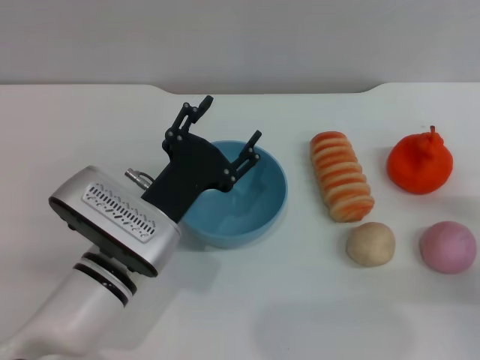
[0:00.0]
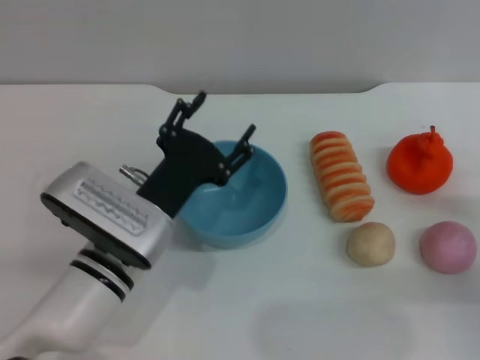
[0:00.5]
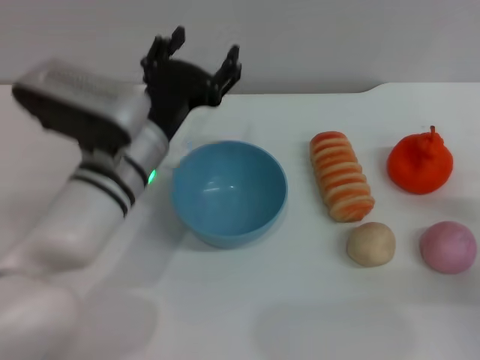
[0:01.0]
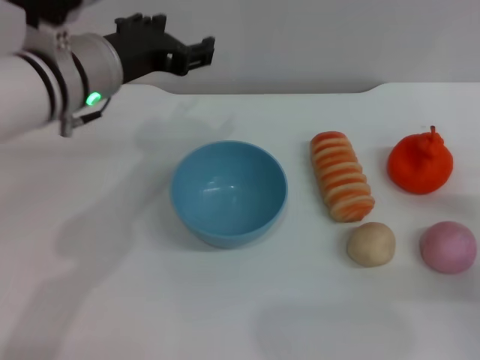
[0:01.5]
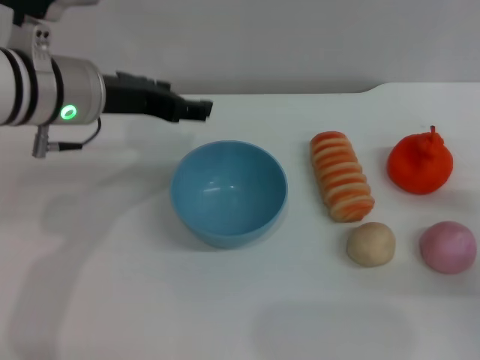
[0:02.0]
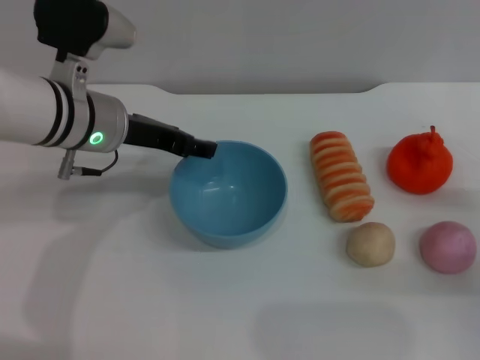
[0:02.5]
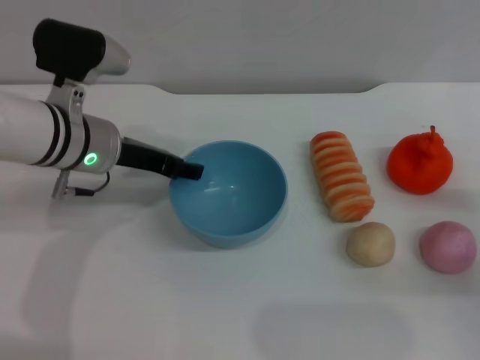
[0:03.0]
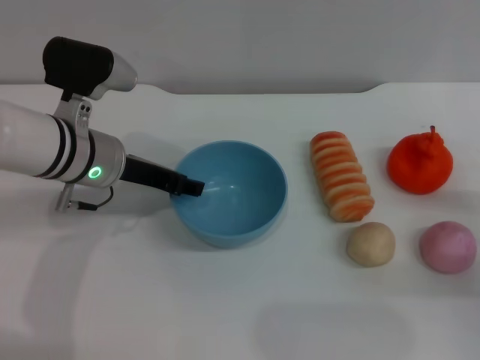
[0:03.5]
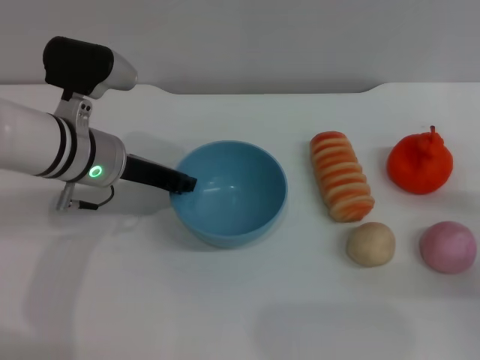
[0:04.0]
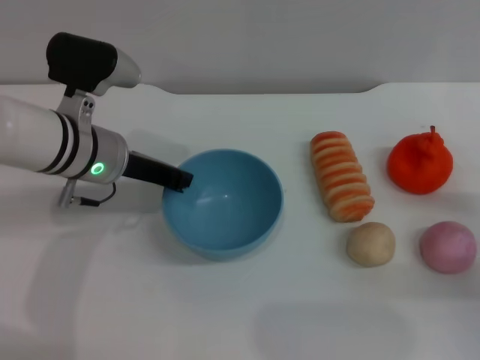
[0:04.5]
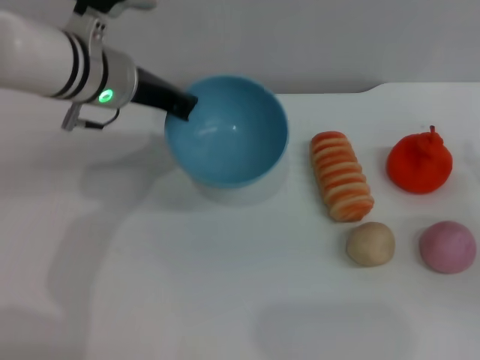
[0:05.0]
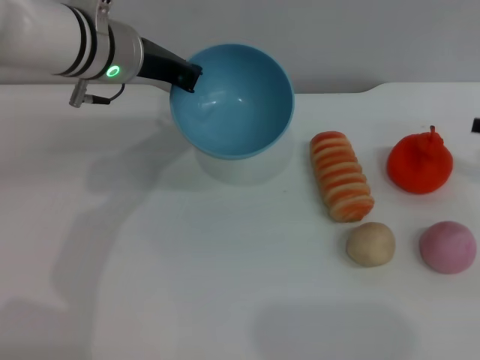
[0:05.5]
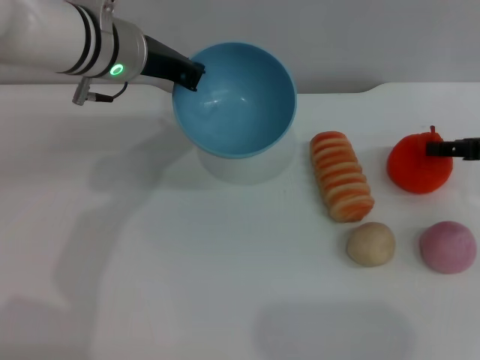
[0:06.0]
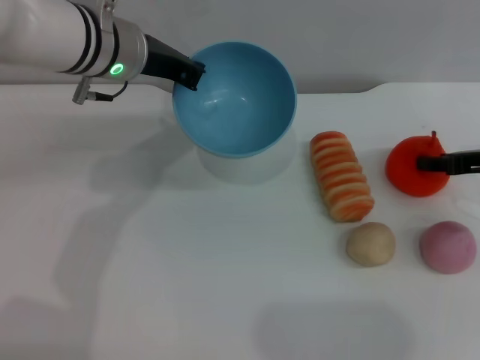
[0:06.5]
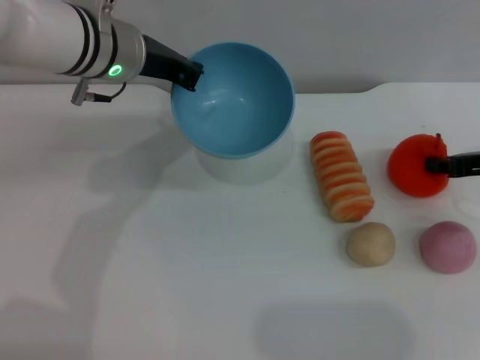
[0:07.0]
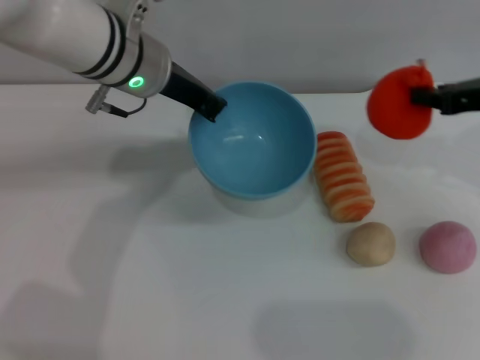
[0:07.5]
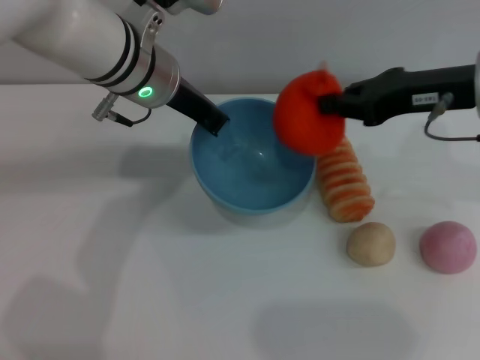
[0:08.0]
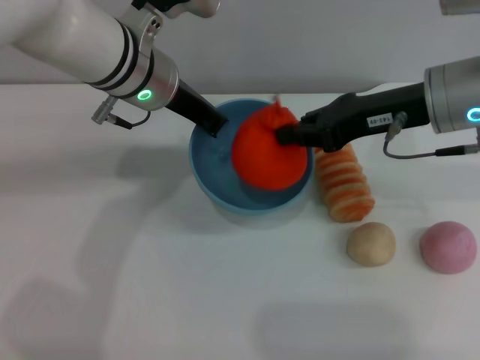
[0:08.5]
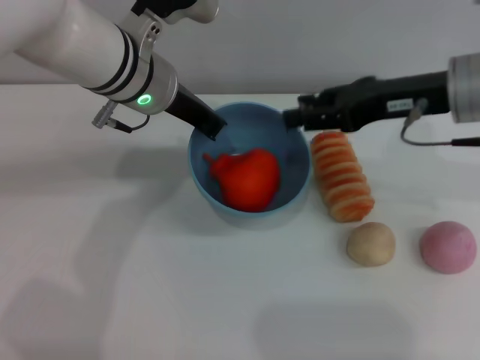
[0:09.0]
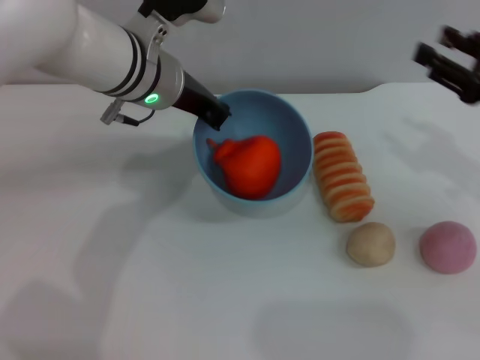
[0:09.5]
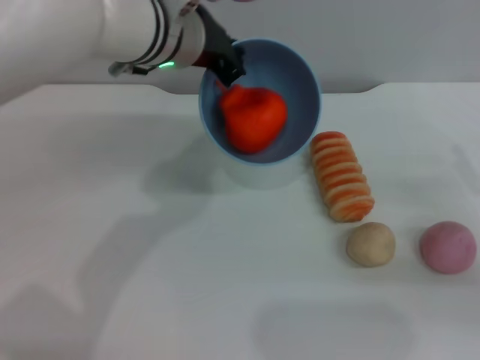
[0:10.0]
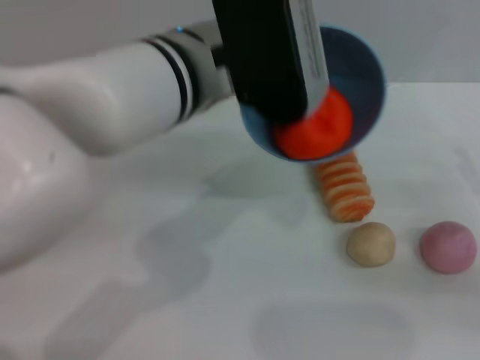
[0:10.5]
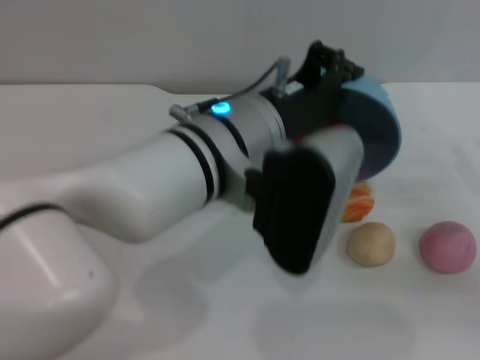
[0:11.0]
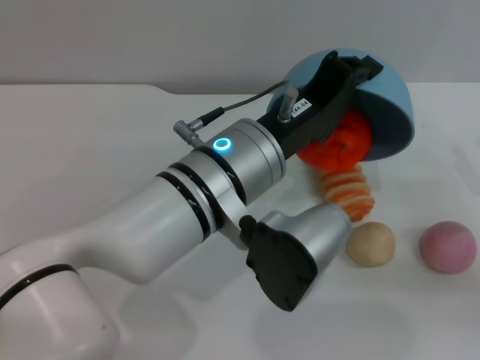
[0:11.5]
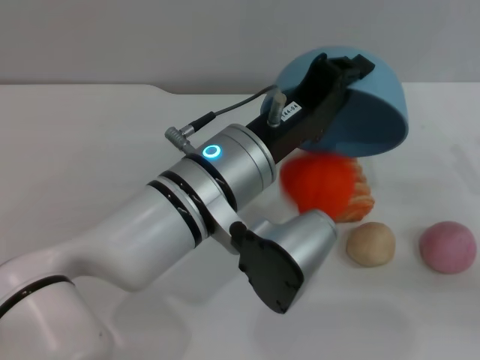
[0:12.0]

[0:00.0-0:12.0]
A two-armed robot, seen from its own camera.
Task of the whole recording: put the orange into the blue bowl and pour it out repeatedly.
Step, 0:00.0 to 0:05.0: Pick up the bowl with the left gripper.
Step, 0:05.5 to 0:07.0: Pick up the orange with the right gripper.
Step, 0:07.5 to 0:09.0: Place the orange into the bowl.
0:00.0 to 0:02.0: The left gripper heads upward and forward, covering some 15 cm.
0:02.0 to 0:04.0: The left gripper goes roughly 10 cm downward, and closes its fingers.
0:04.0 to 0:06.0: The left gripper heads upward, covering some 10 cm, and closes its fingers. The right gripper shifts approximately 15 cm forward and upward.
0:06.0 to 0:08.0: The right gripper is displaced to the left and upward by roughly 15 cm, and closes its fingers.
0:08.0 to 0:10.0: The right gripper moves to the right, downward and backward, some 20 cm, and opens up.
0:10.0 to 0:12.0: The left gripper travels backward and downward by approximately 15 cm.

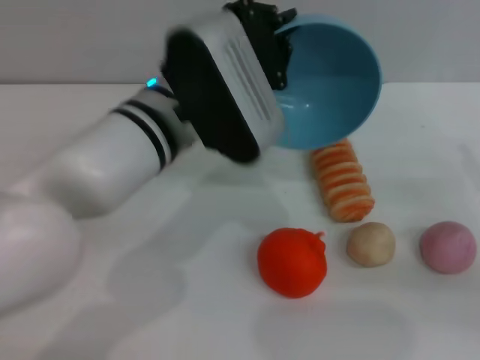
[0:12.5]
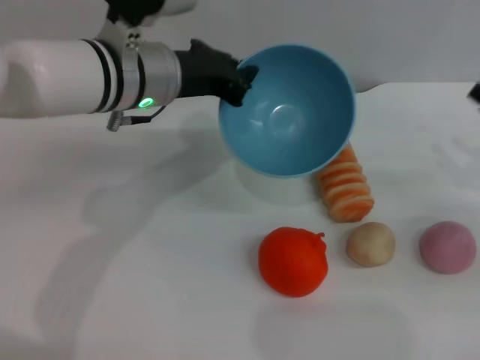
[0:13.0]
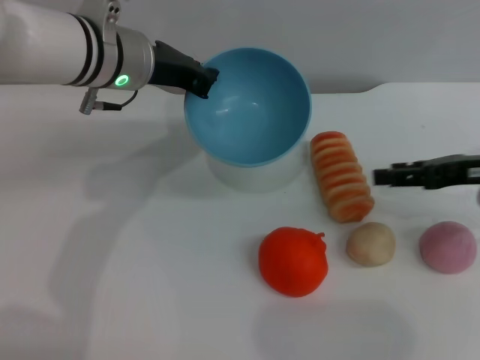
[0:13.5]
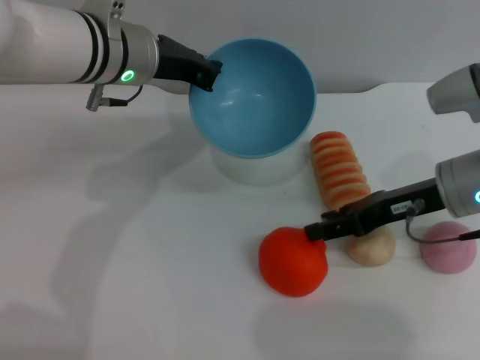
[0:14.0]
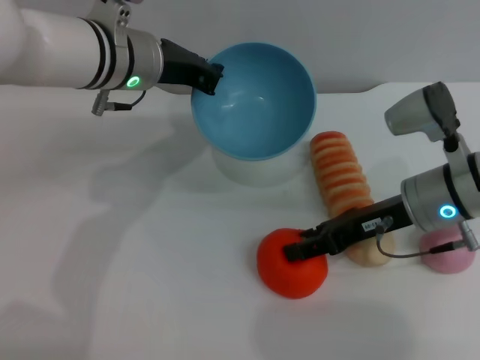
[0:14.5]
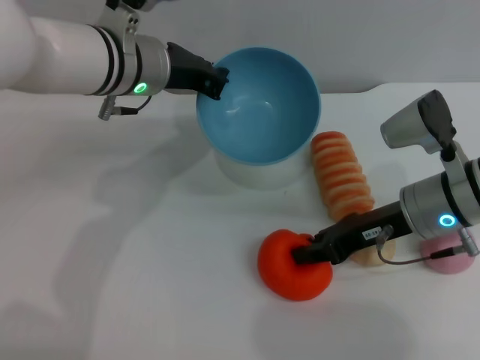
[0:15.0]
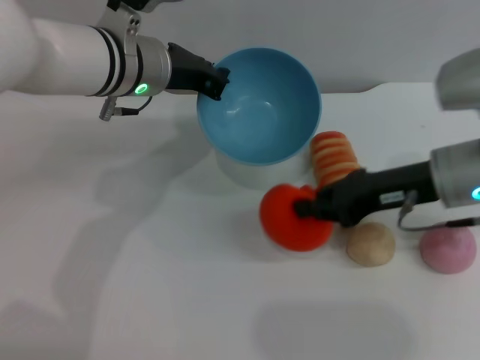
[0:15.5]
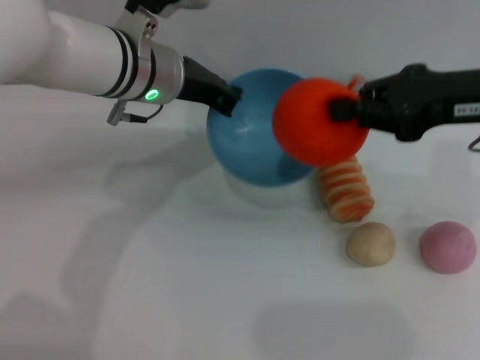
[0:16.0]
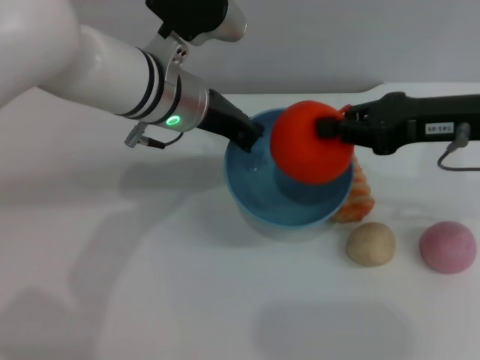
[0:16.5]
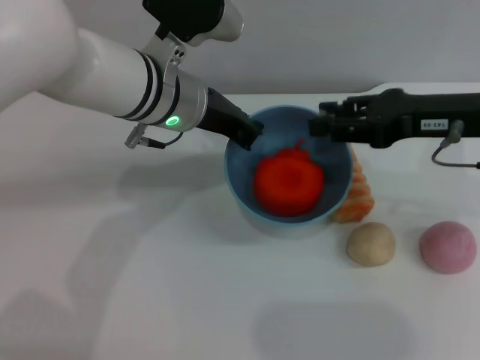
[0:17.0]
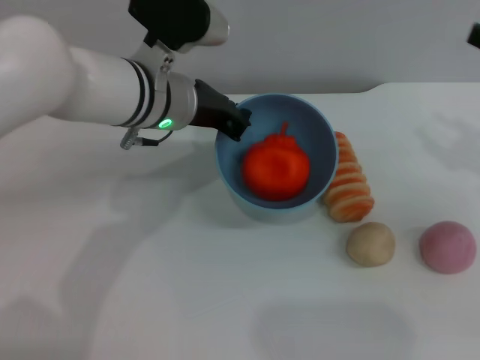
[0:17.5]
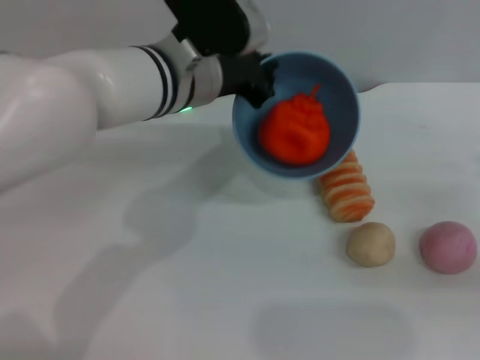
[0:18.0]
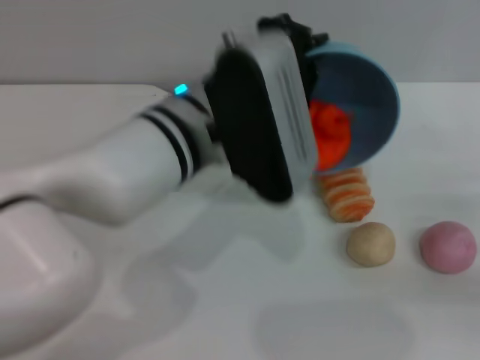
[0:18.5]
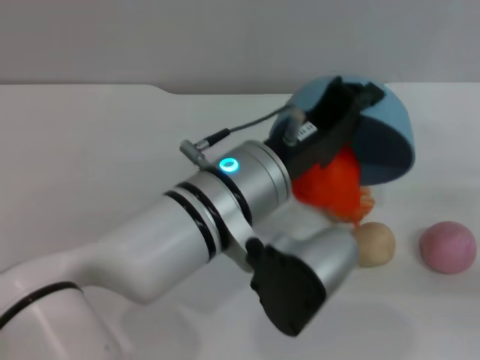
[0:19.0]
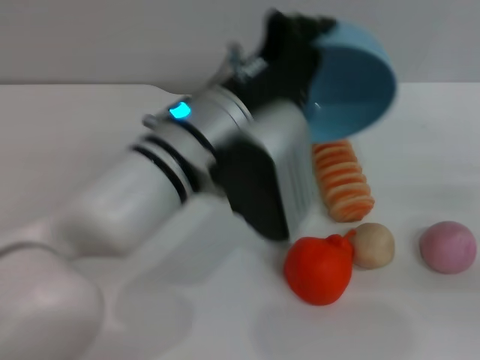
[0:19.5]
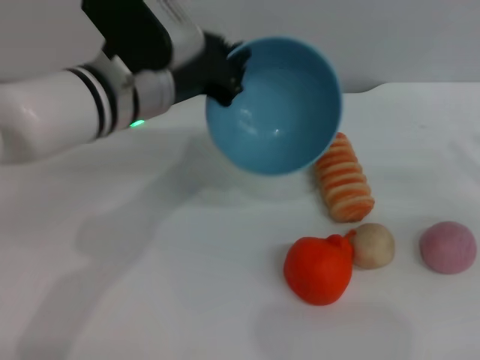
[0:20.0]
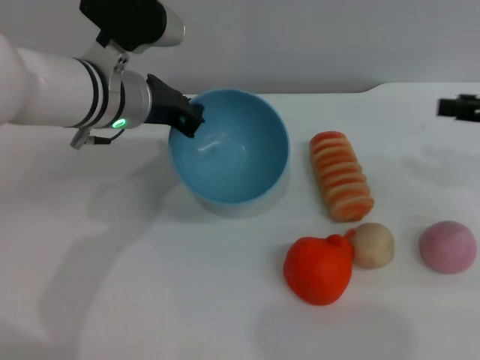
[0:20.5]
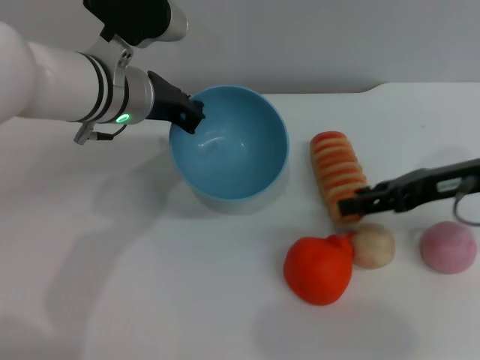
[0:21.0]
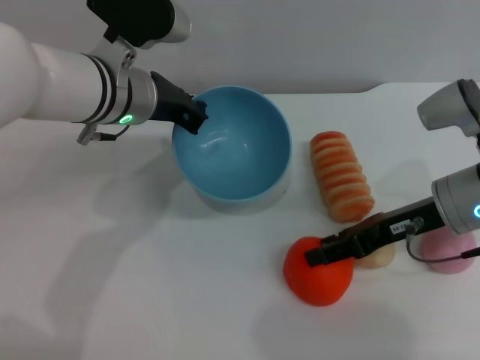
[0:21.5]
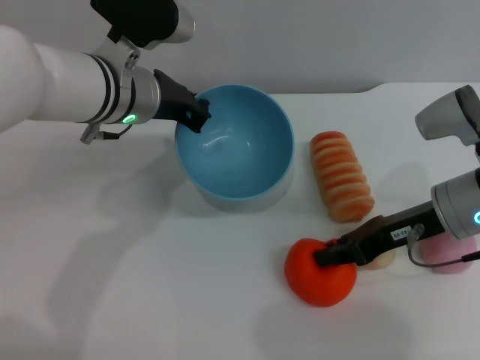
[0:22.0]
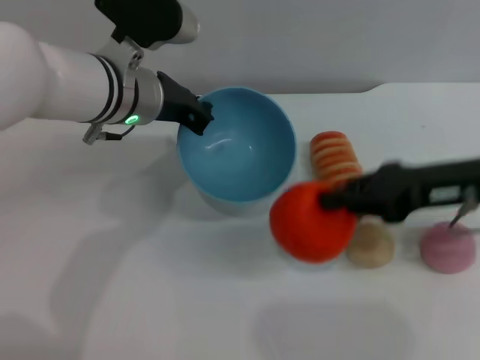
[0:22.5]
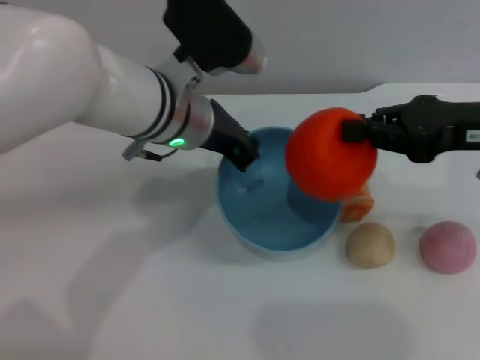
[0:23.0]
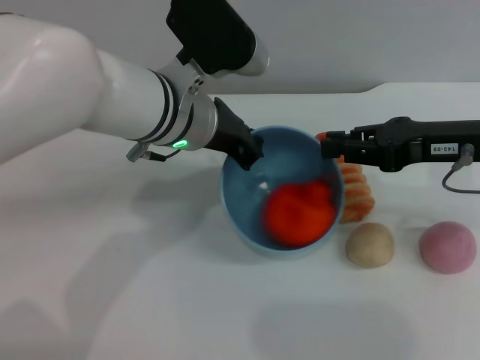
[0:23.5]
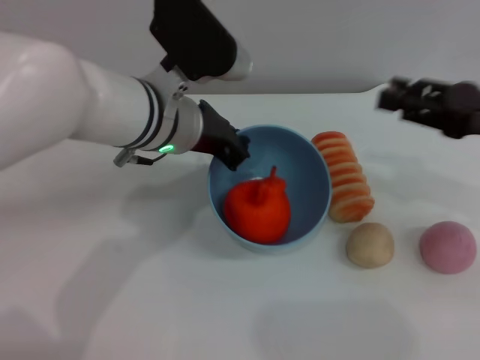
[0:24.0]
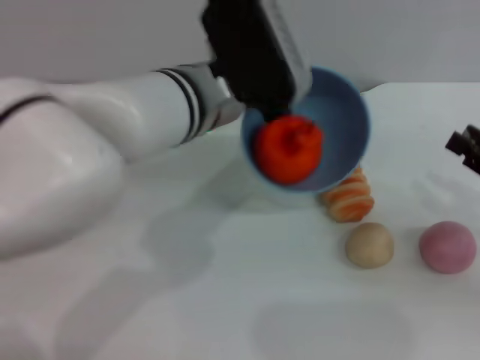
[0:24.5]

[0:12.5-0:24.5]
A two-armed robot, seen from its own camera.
Task of the whole recording: put the orange into the blue bowl and pour it out repeatedly.
Step, 0:13.0 to 0:15.5: Pick up the orange with the right gripper.
Step, 0:16.0 to 0:17.0: Place the orange into the bowl.
Step, 0:17.5 to 0:20.0: Pour the orange out of the bowl.
Step, 0:20.5 to 0:22.0: Pick up the orange with the right gripper.
Step, 0:22.5 to 0:23.5: Place the orange into the bowl.
0:12.5 to 0:14.5: The right gripper is displaced to the left and forward by some 20 cm; the left gripper is displaced forward and to the left by approximately 10 cm.
0:14.5 to 0:16.5: The right gripper moves upward, some 10 cm, and closes up.
0:16.5 to 0:18.5: The right gripper shifts approximately 20 cm to the right, downward and backward, and opens, while the left gripper moves backward, approximately 10 cm.
0:18.5 to 0:20.5: The right gripper heads upward and forward, covering approximately 15 cm, while the left gripper goes about 10 cm to the left and forward.
0:20.5 to 0:22.5: The right gripper shifts some 10 cm to the left, and closes its fingers.
0:22.5 to 0:24.5: The left gripper is displaced to the right by roughly 5 cm, while the right gripper goes approximately 15 cm to the right, downward and backward, and opens its fingers.

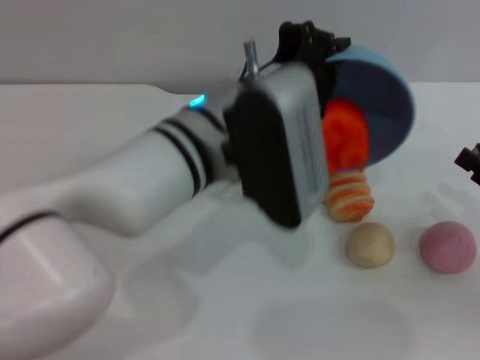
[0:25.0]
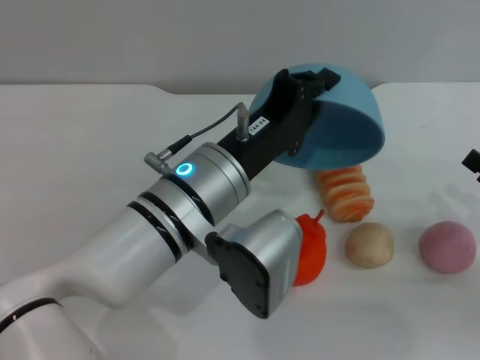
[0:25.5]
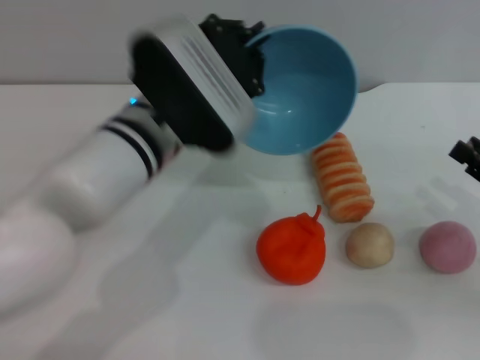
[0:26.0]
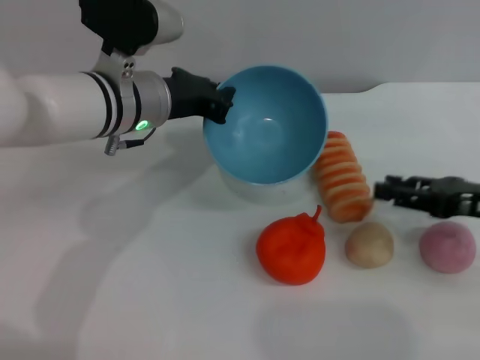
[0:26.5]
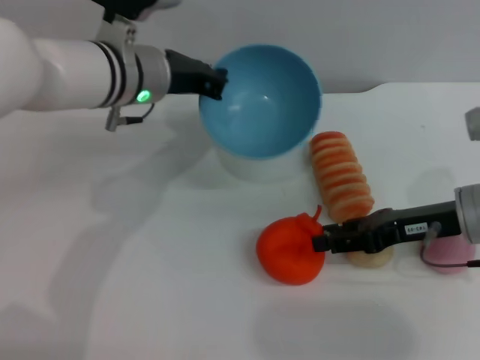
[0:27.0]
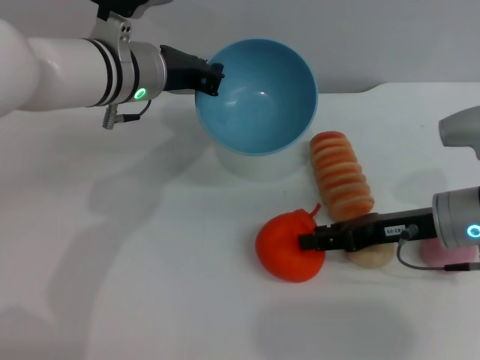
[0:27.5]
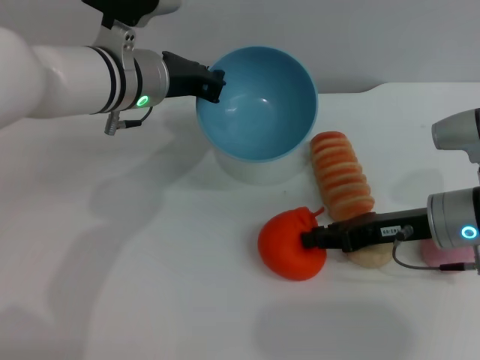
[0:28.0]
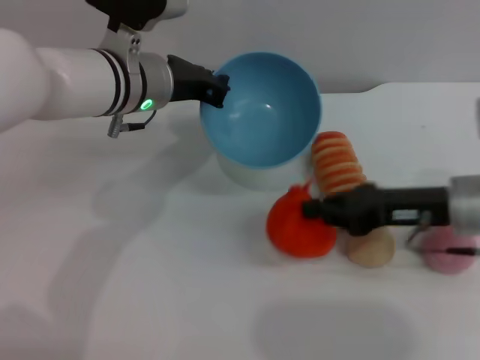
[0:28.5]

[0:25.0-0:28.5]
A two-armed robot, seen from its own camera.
Task of the whole recording: put the orange into the blue bowl and pour it out repeatedly.
0:25.0 to 0:27.0: The right gripper moves to the left and forward, about 15 cm; the left gripper goes about 15 cm forward and to the left.
0:27.0 to 0:28.5: The right gripper closes.
